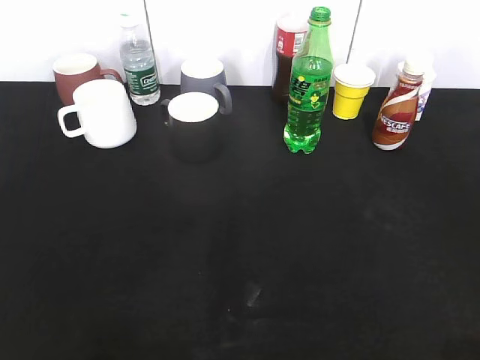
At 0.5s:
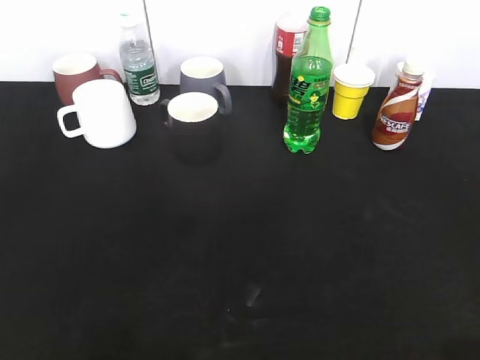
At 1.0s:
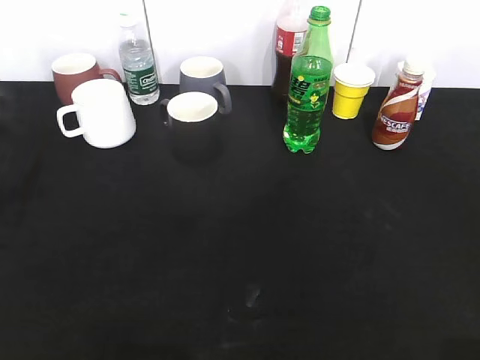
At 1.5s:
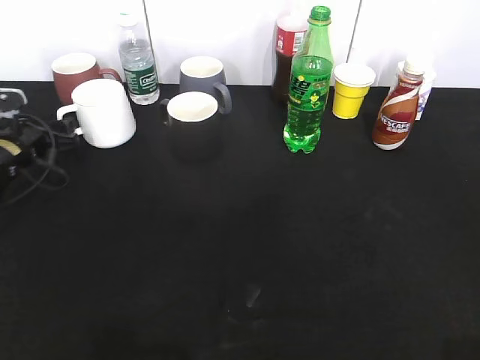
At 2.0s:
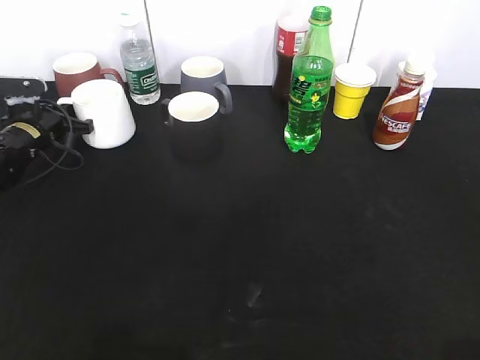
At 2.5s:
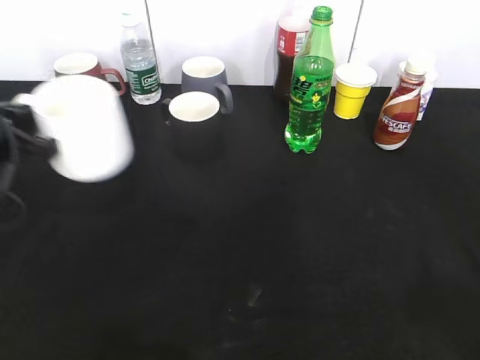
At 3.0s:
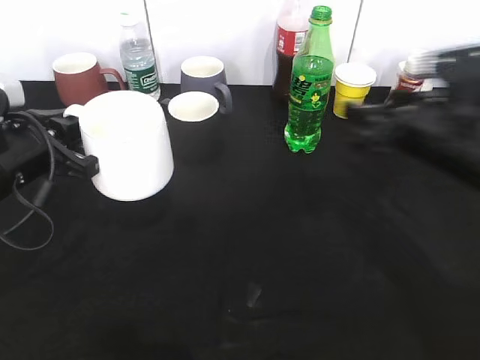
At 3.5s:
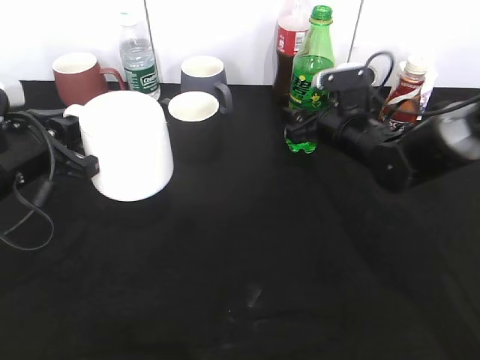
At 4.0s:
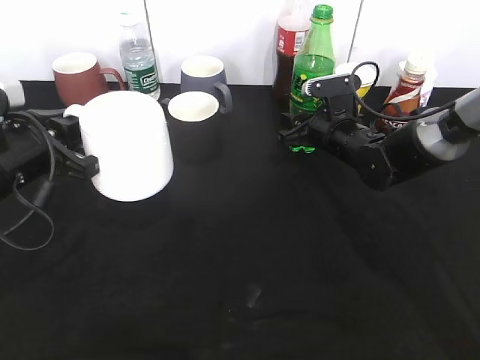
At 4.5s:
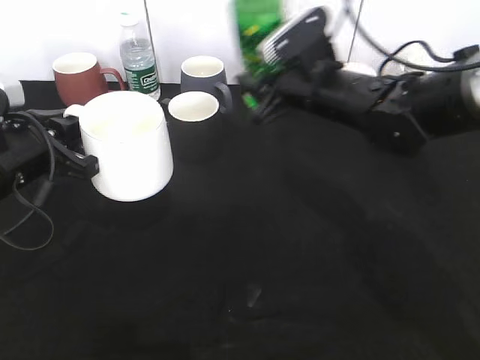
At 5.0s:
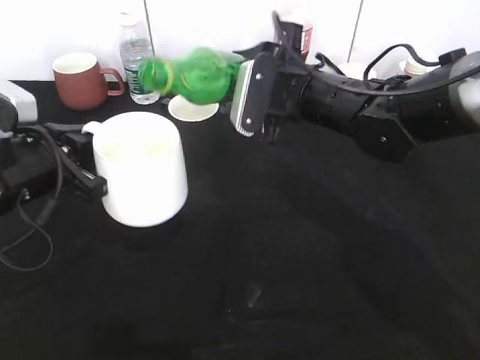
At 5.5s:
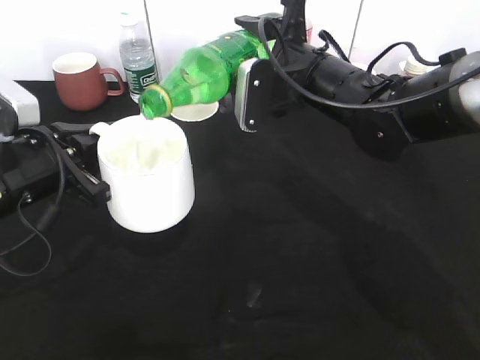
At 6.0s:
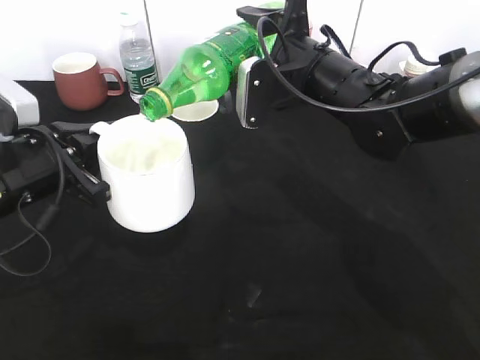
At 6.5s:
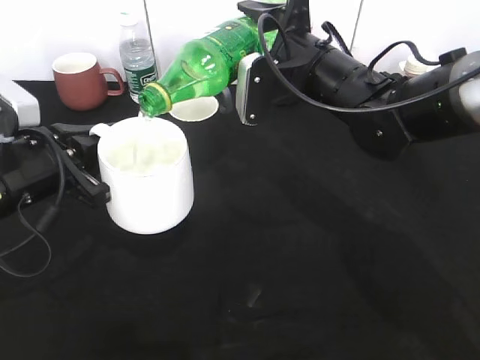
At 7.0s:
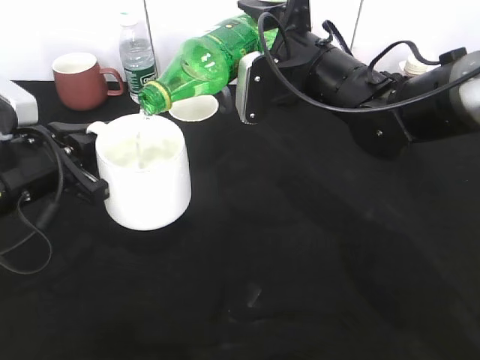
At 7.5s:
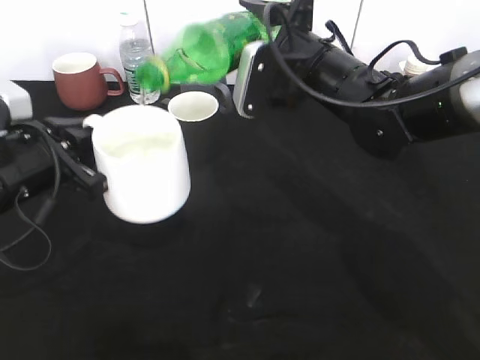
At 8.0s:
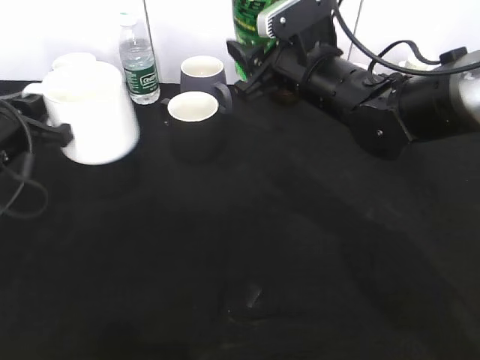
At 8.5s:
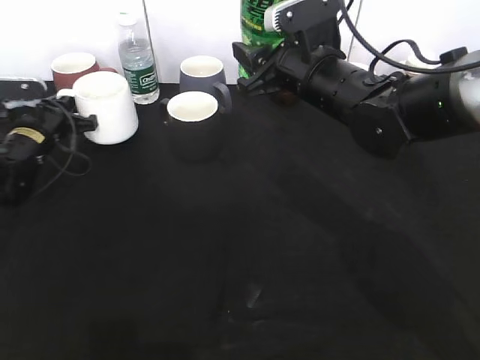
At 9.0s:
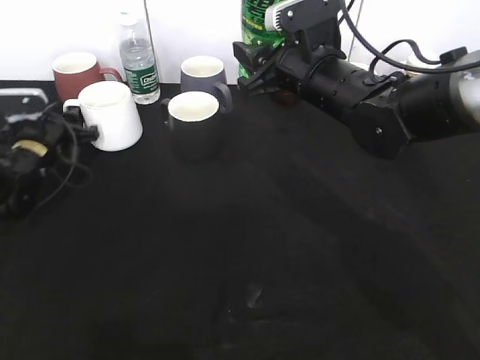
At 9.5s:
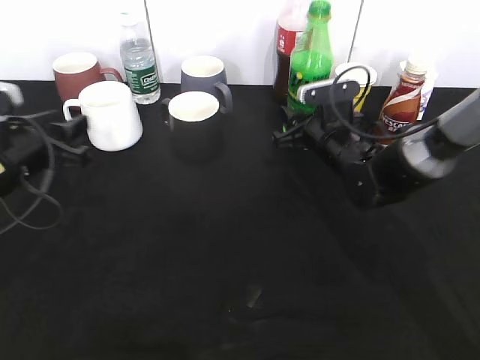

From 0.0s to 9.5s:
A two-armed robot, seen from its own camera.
Step, from 2.0s to 2.5s: Lift the white cup with left gripper.
Step, from 3.0s to 4.0s: Grasp the bottle with sprite with right gripper.
Step, from 4.5s to 7.5s: Pour the sprite from bottle to cup with right gripper.
Step, from 8.0s to 9.0s: Place the white cup on the table with left gripper.
From 0.0s to 2.0s: The left gripper heads forward and downward, covering about 50 cm, and closes.
From 2.0s to 4.0s: The right gripper shifts roughly 50 cm forward and downward, and closes up; the left gripper goes roughly 25 cm backward, upward and to the right.
From 4.0s to 5.5s: The right gripper heads upward, to the left and backward, covering some 15 cm.
From 5.5s to 7.5s: There are only small adjustments of the grippers.
From 7.5s to 9.5s: The left gripper moves about 20 cm forward and comes back, and opens, while the right gripper travels downward by some 15 cm.

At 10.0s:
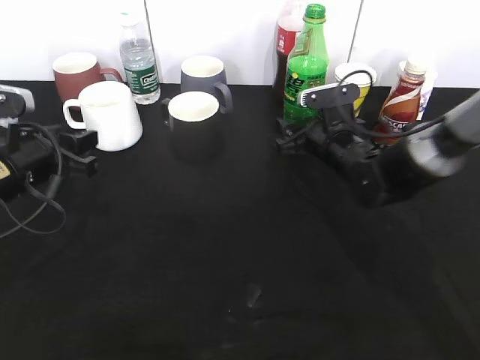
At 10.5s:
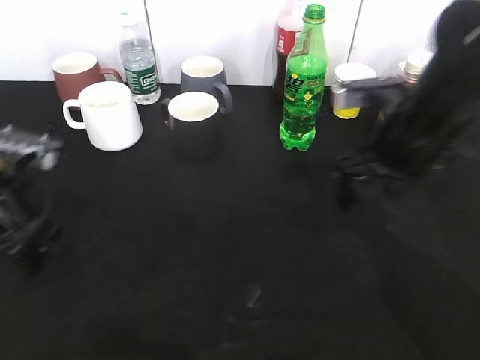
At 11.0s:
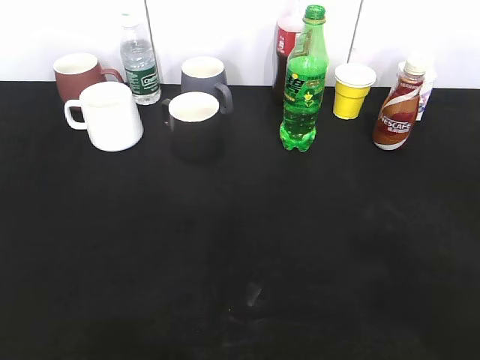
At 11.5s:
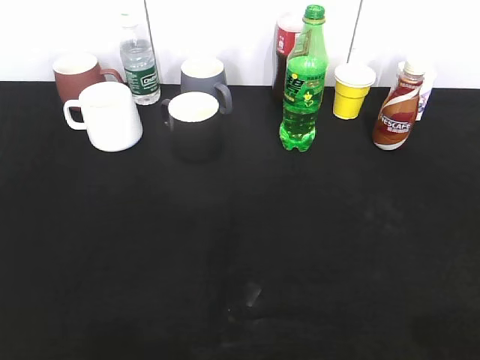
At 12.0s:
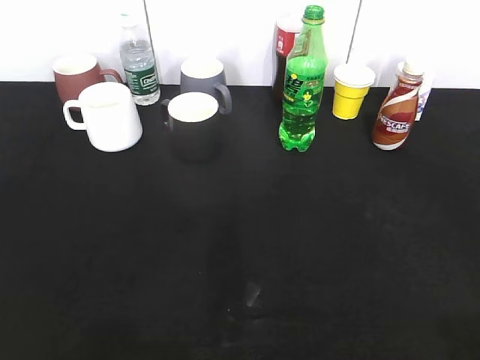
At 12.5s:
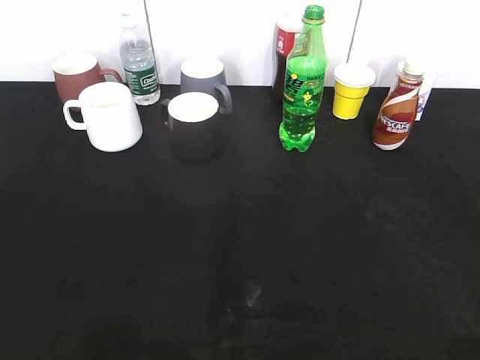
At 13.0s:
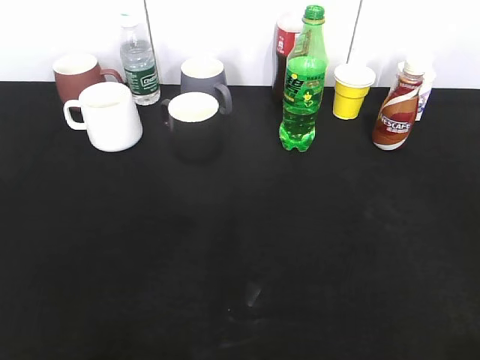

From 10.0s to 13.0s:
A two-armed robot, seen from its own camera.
From 10.0s to 11.5s: The left gripper heads backward and upward, covering some 30 cm; the right gripper heads backward, upward and to the right, covering approximately 50 cm.

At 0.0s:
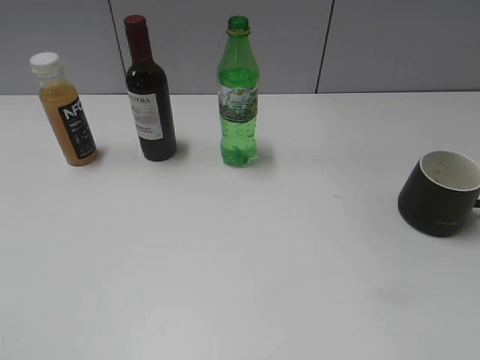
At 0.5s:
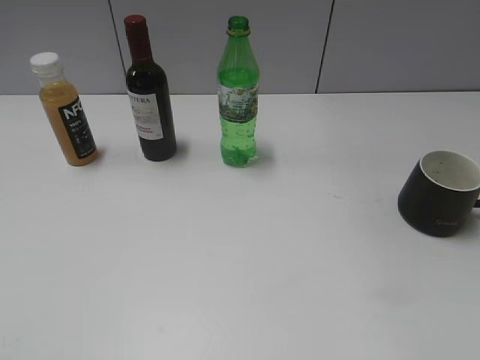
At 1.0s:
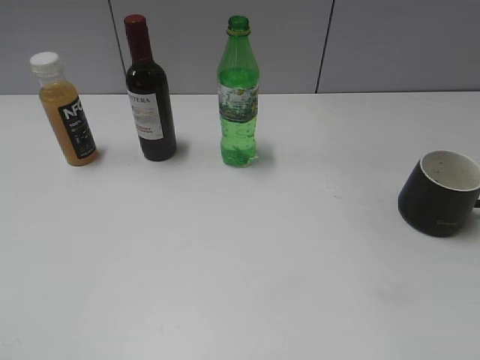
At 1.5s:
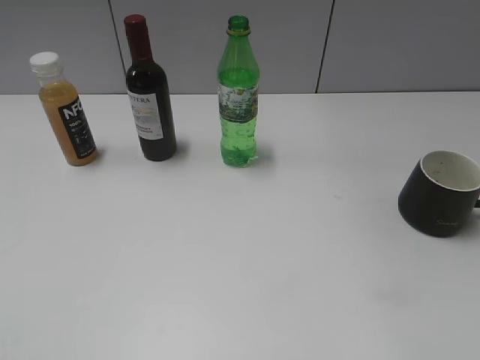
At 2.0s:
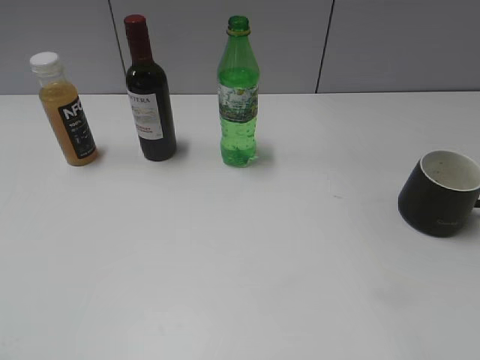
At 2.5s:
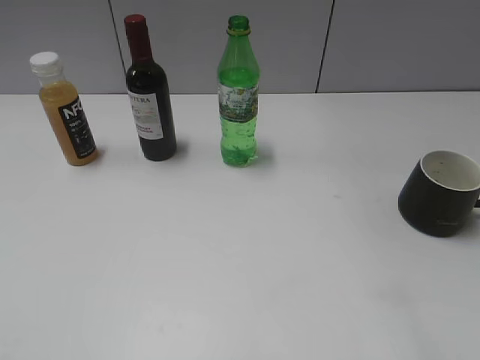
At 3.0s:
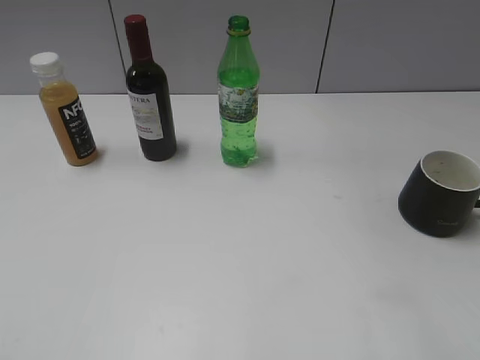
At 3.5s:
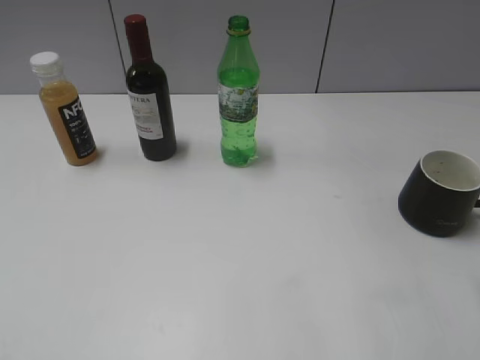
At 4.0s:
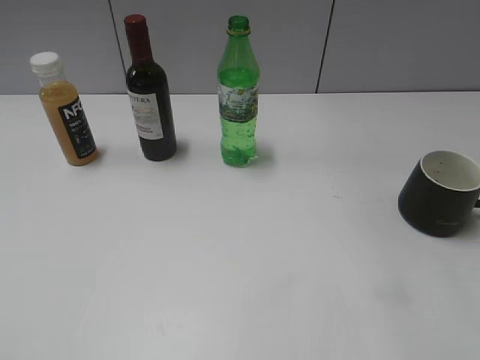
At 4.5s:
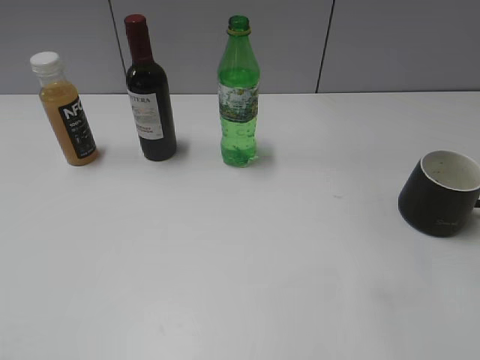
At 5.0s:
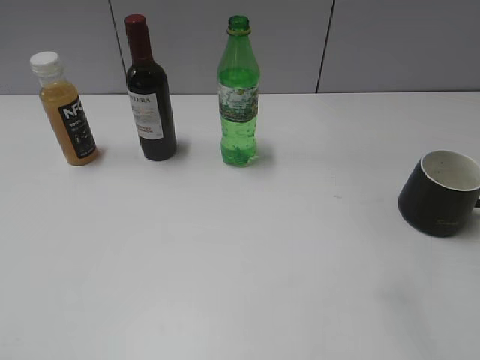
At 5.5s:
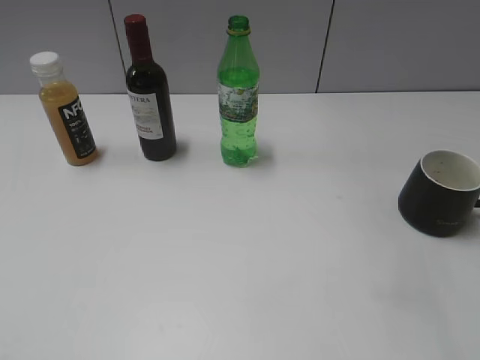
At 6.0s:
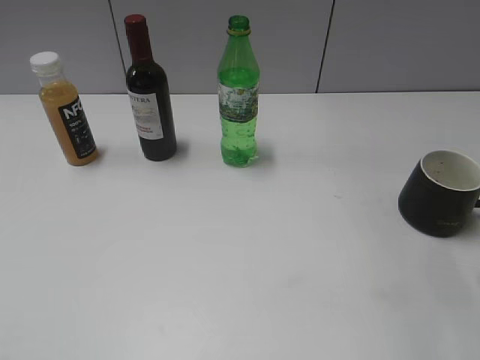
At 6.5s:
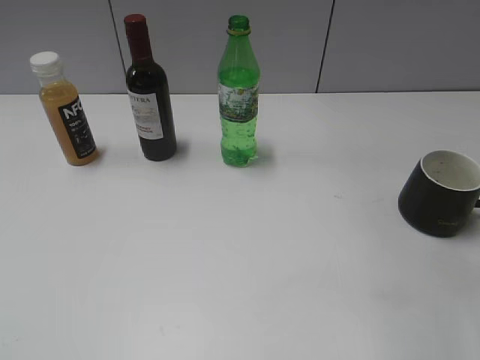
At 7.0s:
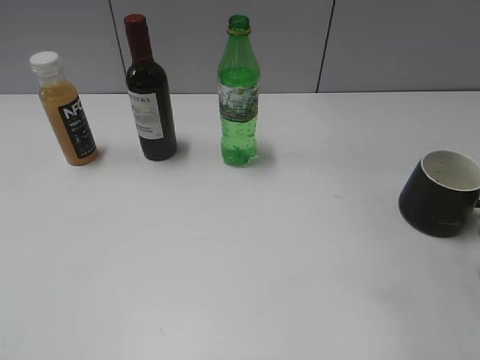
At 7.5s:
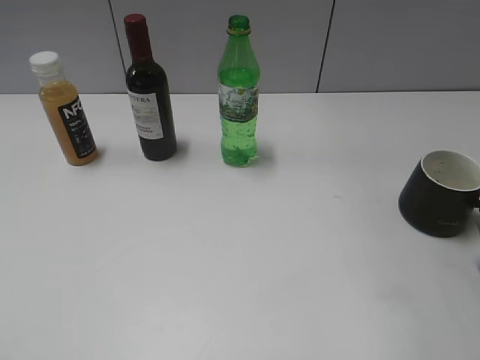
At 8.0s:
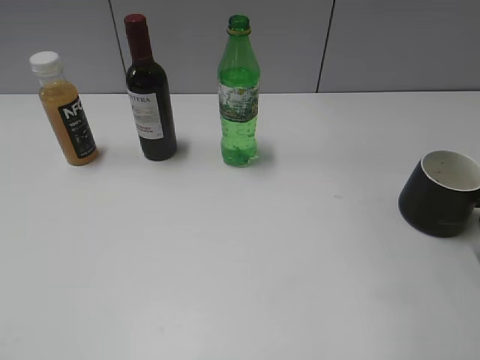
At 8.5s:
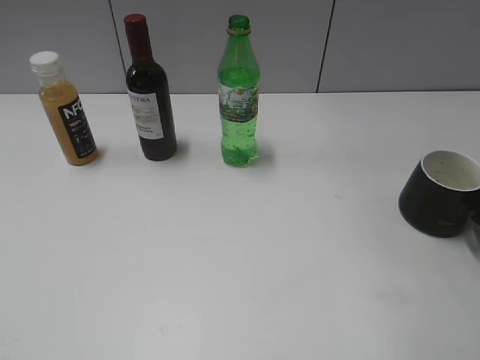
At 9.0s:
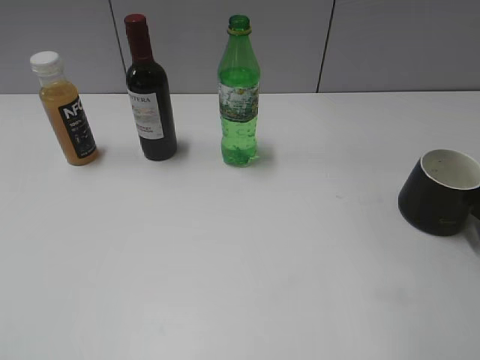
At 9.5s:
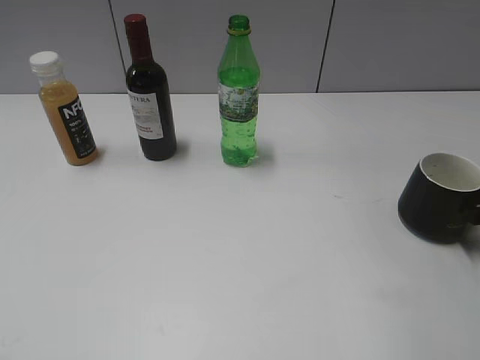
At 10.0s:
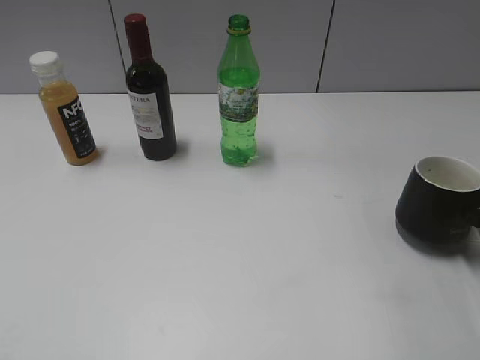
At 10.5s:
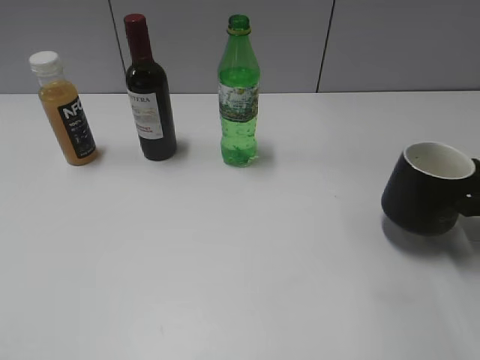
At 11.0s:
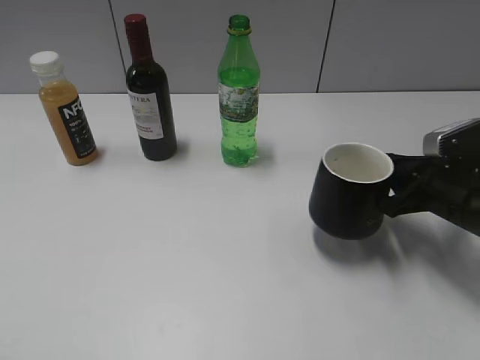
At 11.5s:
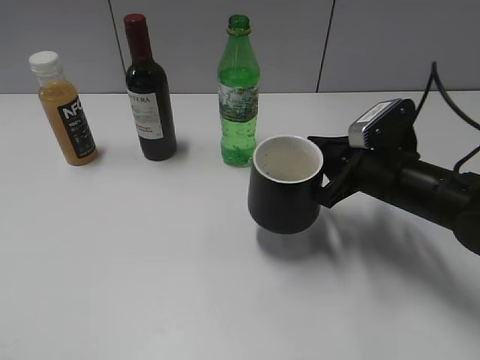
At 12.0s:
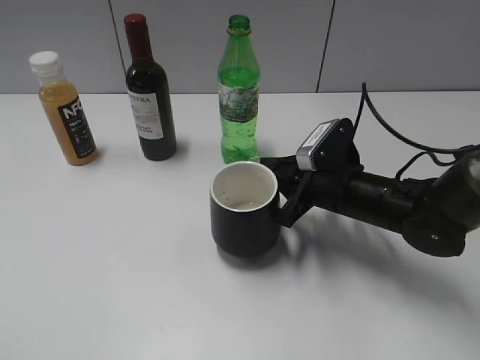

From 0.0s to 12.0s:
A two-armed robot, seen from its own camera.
From 8.0s to 10.0s: The right gripper closes its fingers.
From 10.0s to 12.0s: The right gripper goes approximately 20 cm to the left.

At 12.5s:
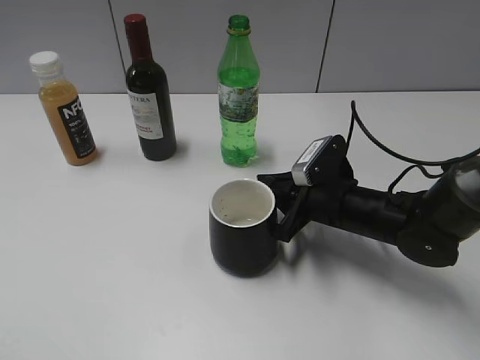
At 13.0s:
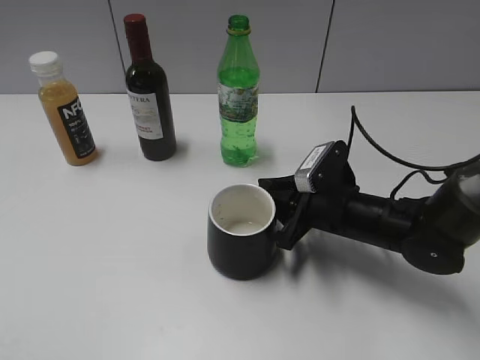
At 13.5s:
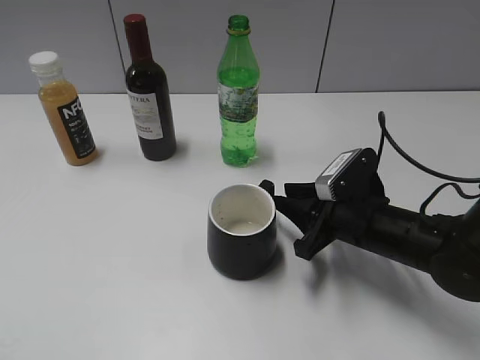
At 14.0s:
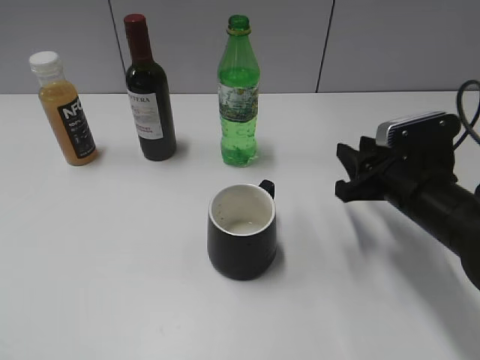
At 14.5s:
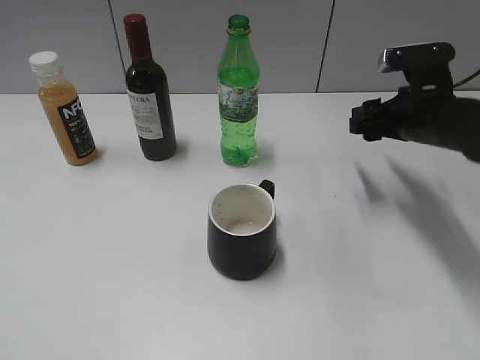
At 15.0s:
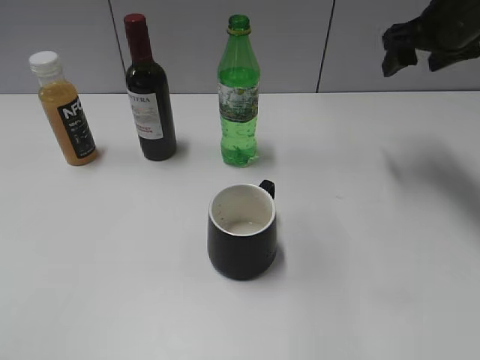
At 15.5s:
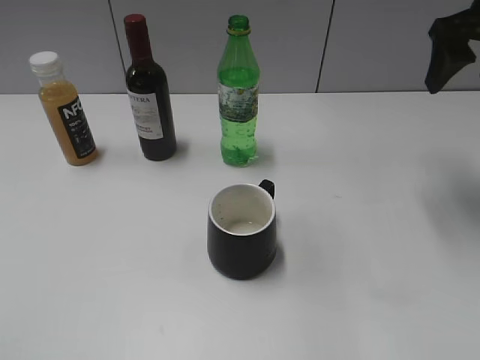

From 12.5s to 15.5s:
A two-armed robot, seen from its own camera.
From 12.5s to 14.0s: The right gripper travels to the right and upward by approximately 10 cm, and opens up.
From 14.0s to 15.5s: The right gripper travels upward and forward by roughly 20 cm, and opens.
